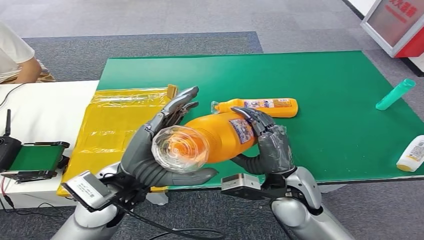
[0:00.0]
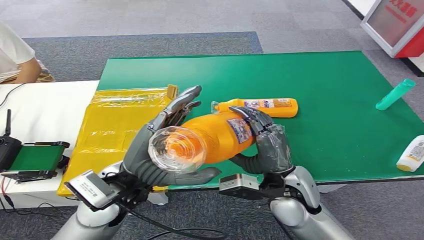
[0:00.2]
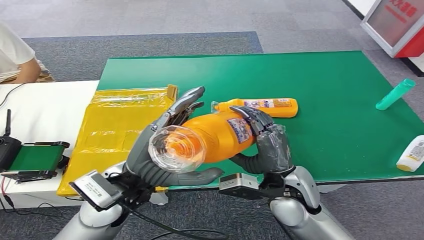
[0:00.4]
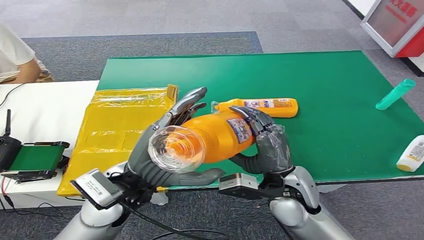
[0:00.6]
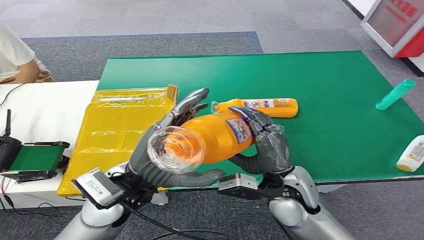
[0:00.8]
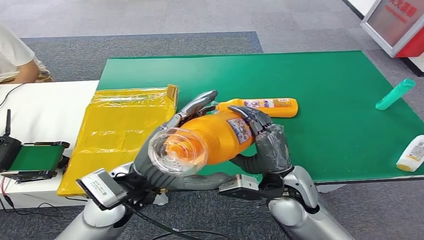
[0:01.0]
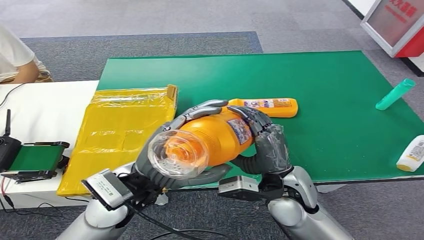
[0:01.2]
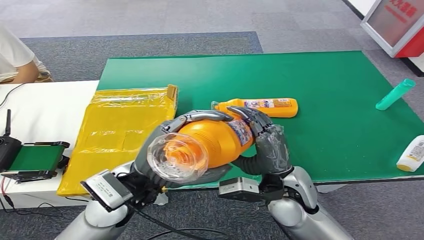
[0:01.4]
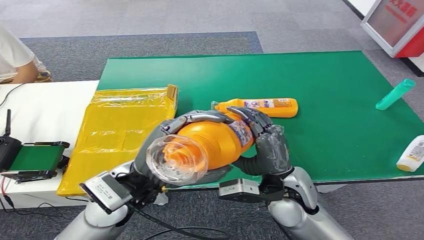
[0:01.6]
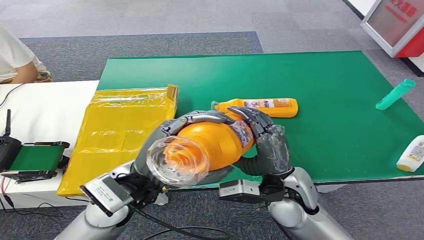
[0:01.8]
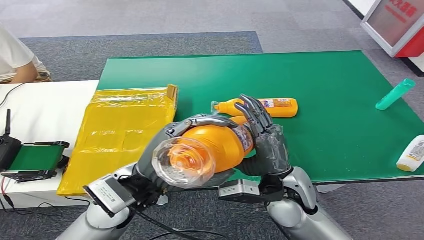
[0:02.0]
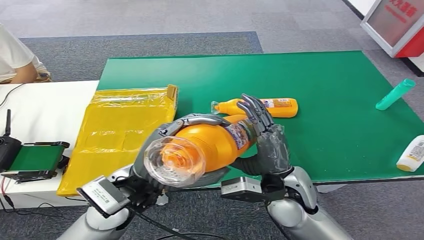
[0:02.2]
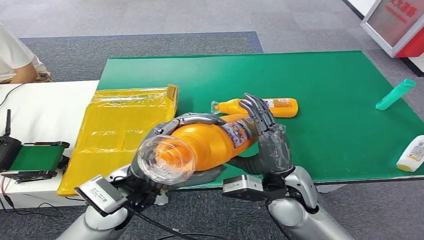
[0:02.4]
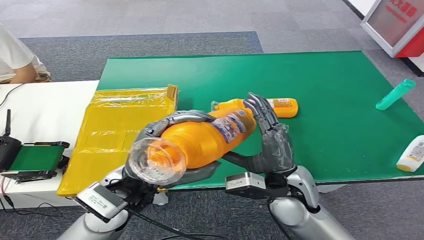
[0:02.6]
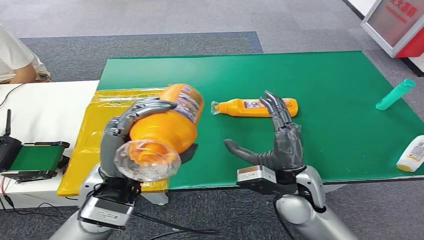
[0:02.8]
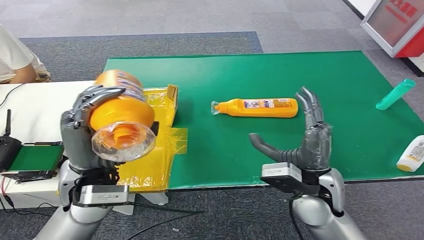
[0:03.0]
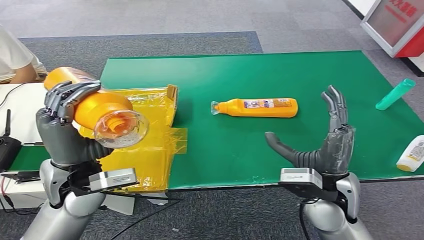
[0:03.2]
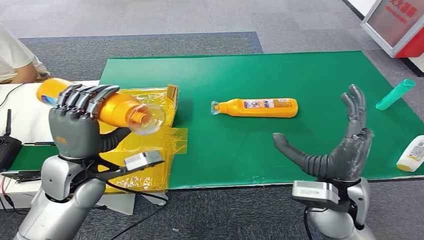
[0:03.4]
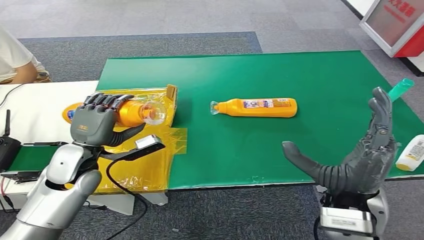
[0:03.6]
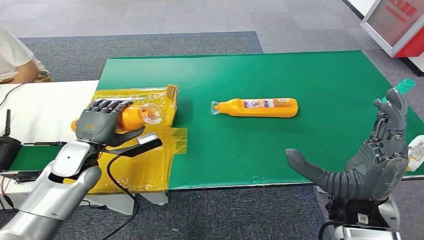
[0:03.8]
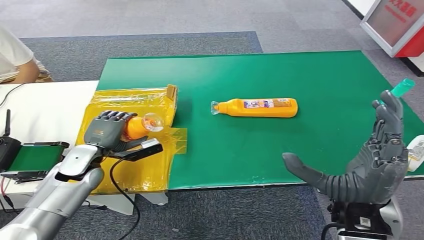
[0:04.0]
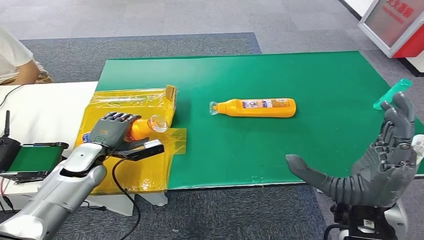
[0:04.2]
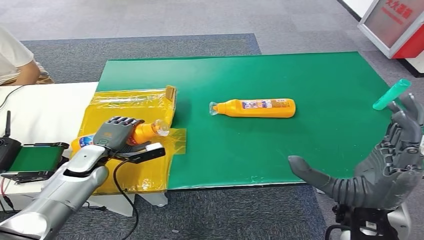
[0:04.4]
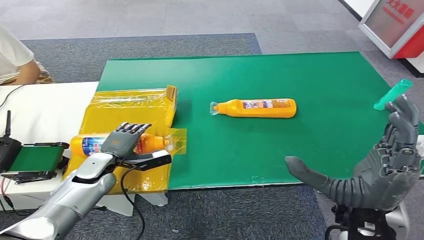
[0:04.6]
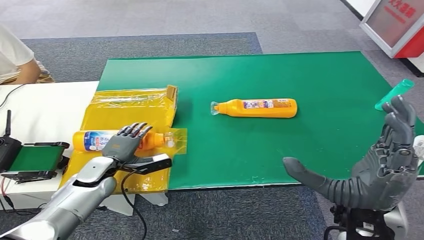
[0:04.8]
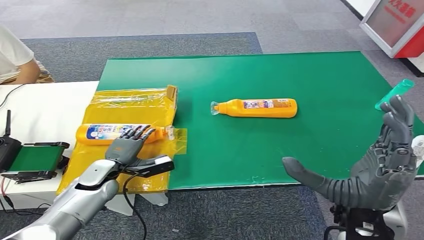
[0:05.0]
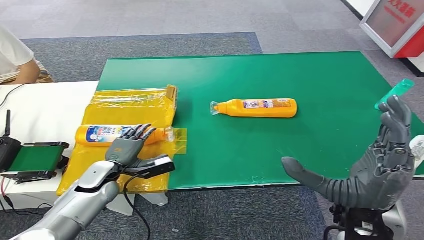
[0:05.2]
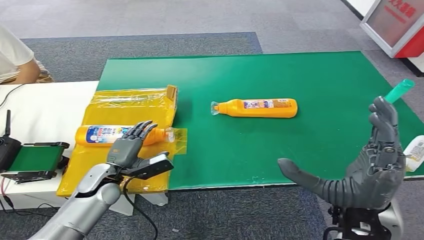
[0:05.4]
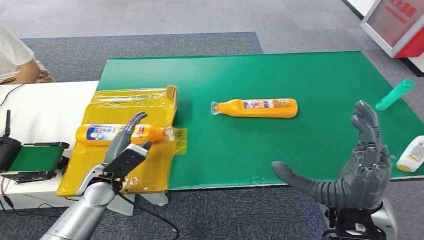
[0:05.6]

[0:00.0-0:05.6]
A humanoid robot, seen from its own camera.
Step, 0:00.0 to 0:05.6: Turn the bottle to the front side.
0:00.0 to 0:01.4: The hands make only small movements.
0:04.2 to 0:05.6: The left hand heads backward and to the right, covering about 10 cm.

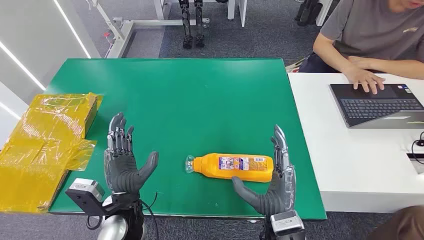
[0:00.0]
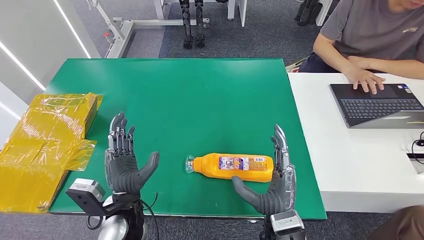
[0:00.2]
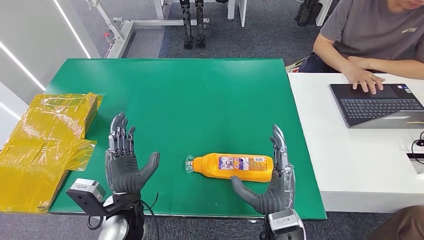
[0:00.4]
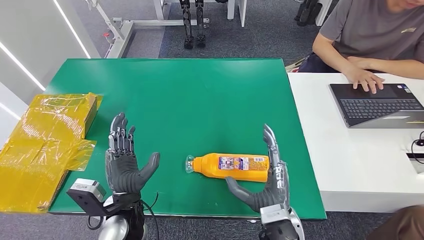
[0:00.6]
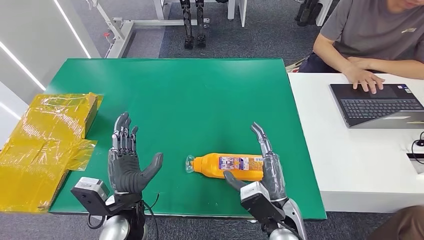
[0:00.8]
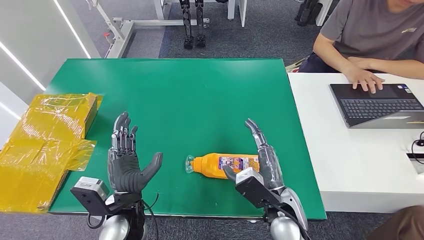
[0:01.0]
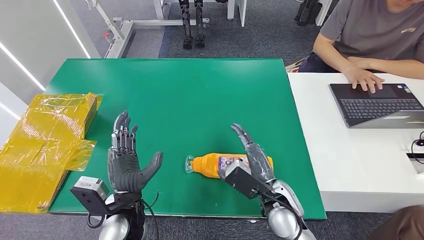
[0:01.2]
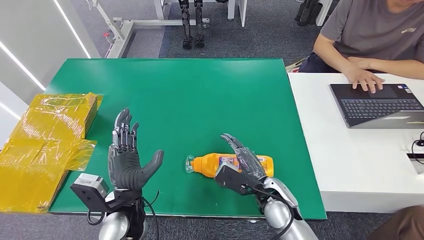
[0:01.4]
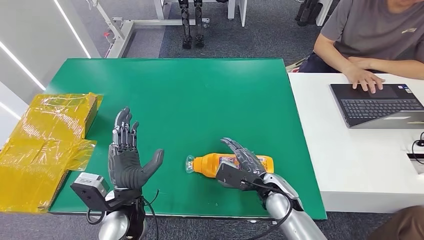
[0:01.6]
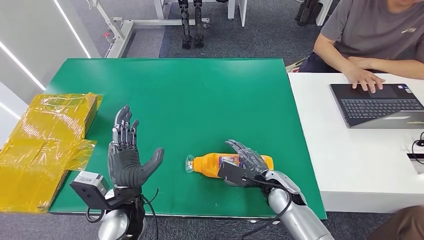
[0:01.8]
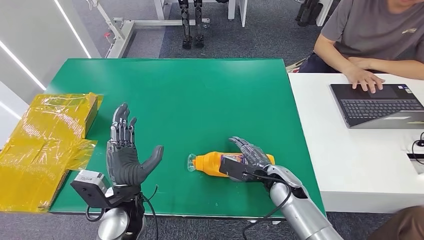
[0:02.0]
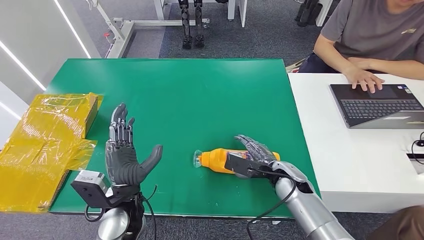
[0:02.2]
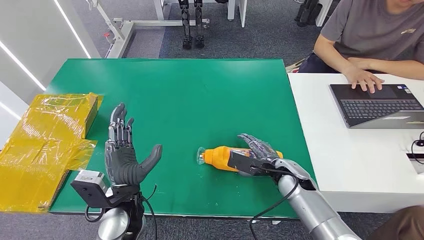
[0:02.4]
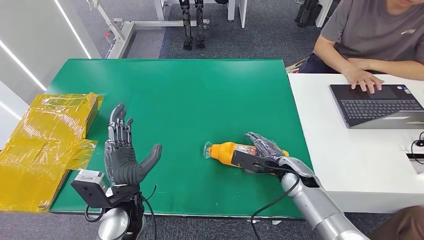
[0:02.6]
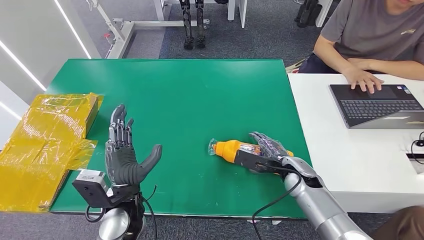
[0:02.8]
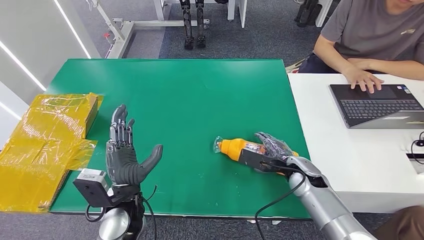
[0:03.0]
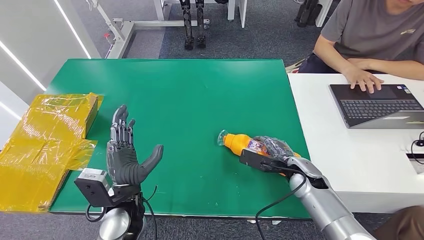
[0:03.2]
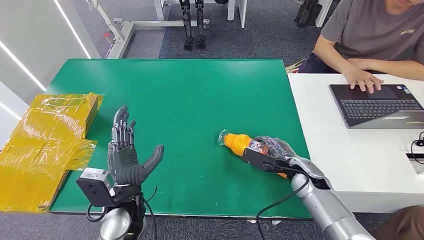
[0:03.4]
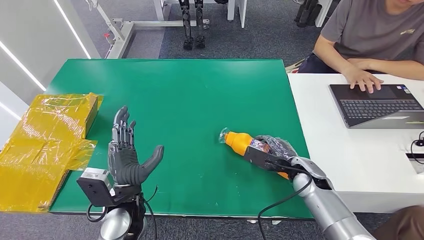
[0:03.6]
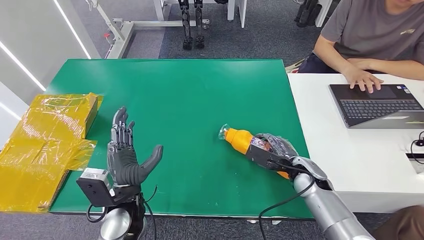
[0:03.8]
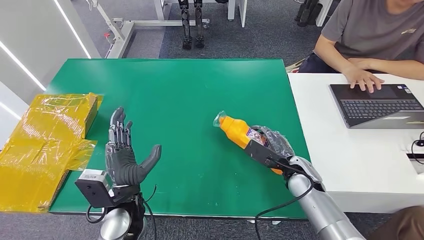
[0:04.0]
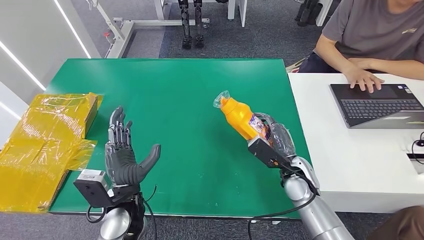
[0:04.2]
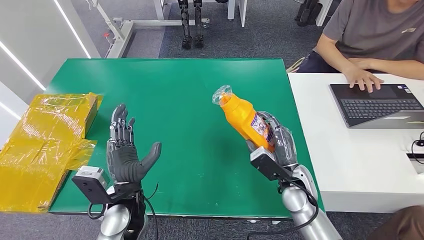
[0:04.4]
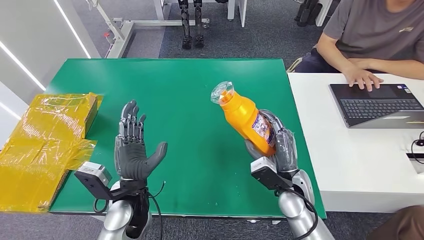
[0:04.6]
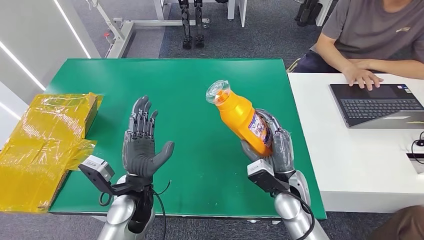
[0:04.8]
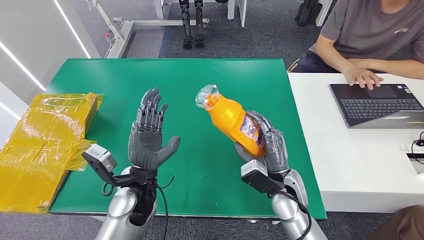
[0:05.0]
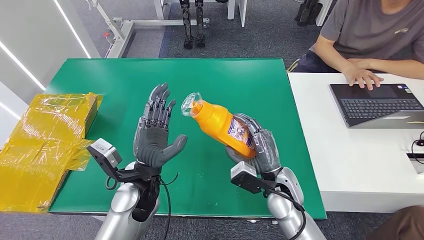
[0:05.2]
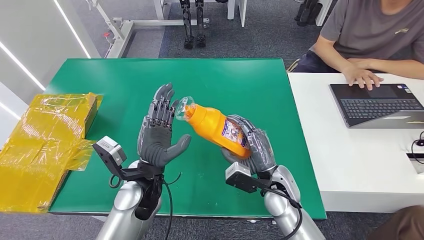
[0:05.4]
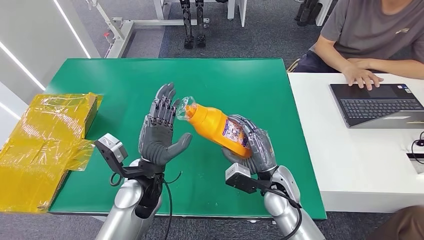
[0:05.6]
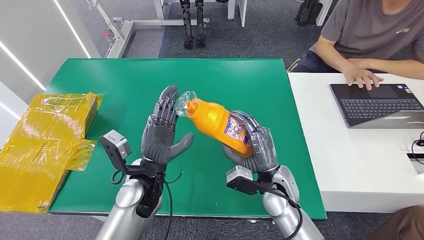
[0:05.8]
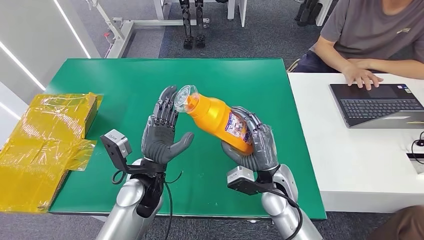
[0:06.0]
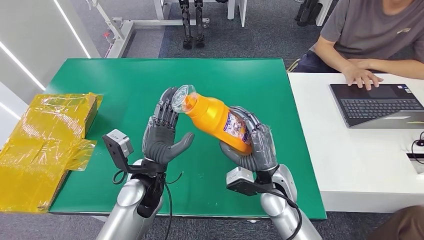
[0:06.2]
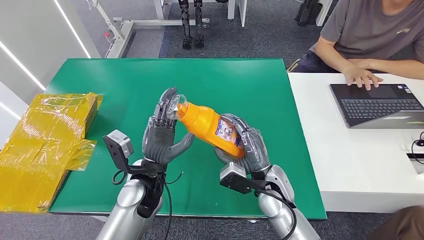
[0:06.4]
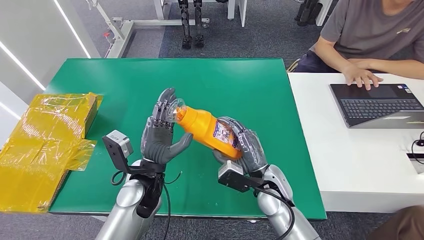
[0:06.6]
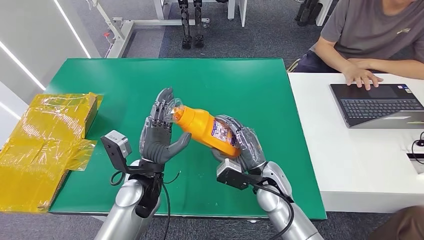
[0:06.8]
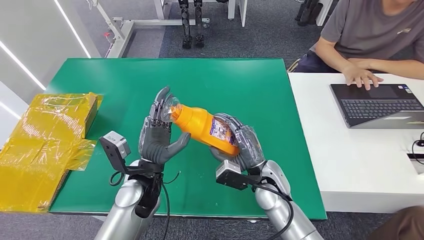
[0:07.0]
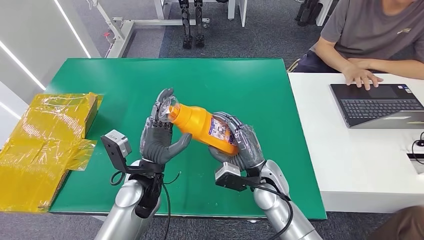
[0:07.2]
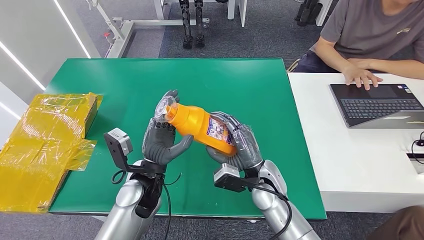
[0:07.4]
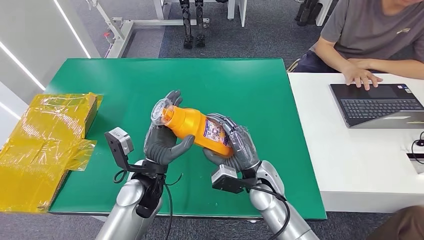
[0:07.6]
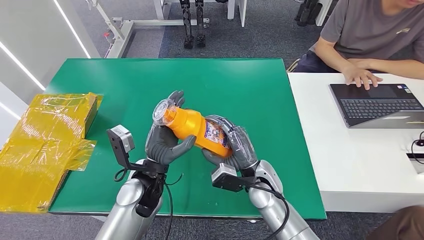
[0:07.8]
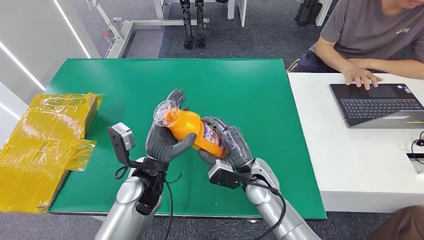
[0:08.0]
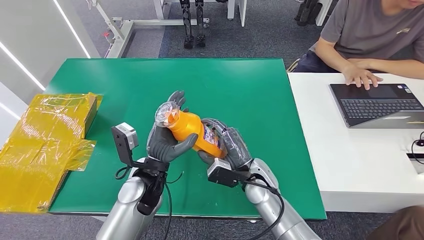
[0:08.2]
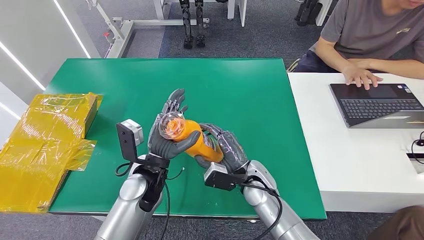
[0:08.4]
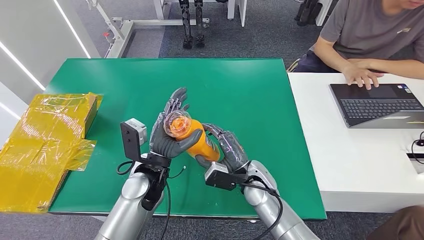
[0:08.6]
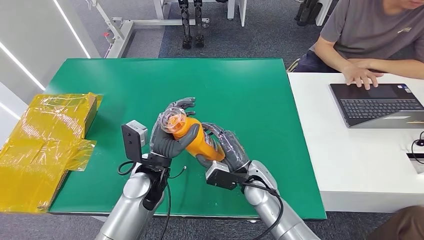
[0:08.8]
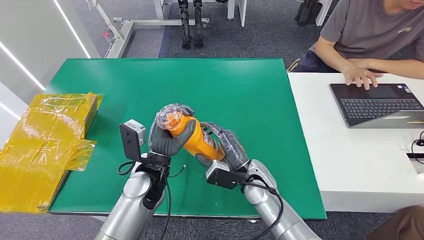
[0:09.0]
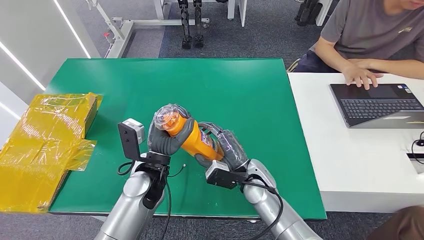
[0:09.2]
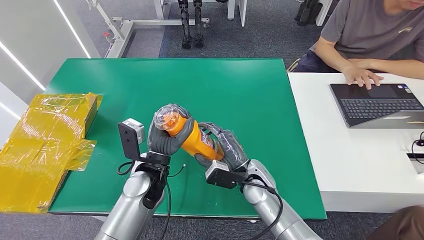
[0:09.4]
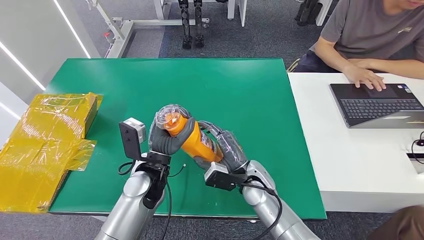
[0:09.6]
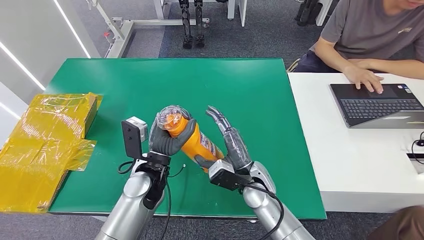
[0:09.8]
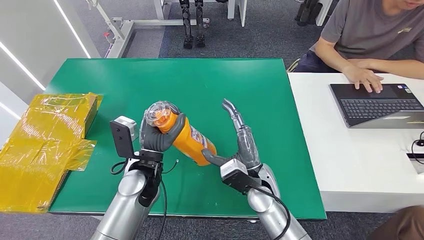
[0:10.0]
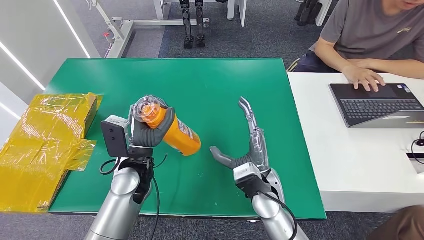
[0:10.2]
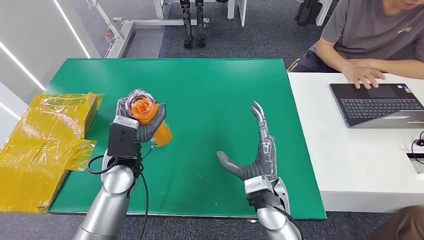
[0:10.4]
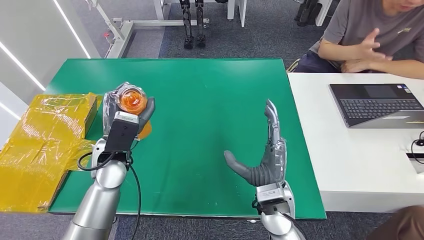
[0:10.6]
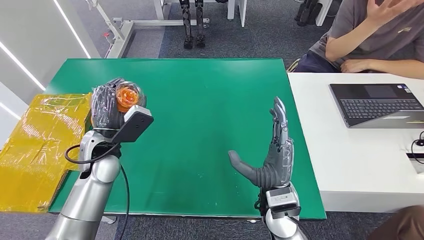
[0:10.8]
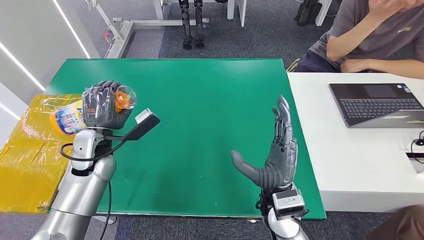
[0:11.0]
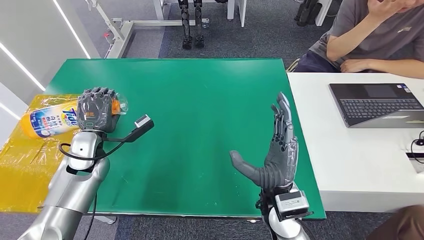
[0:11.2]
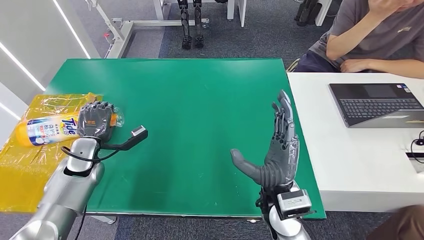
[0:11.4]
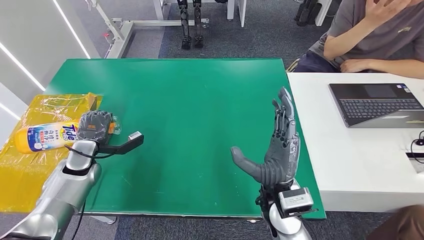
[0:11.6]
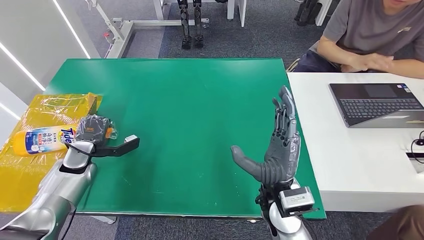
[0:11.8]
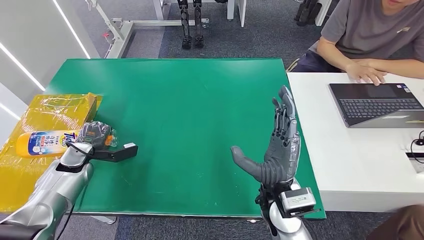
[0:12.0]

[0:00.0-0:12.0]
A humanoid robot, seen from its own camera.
Step, 0:00.0 to 0:06.2: Pick up the bottle from the table.
0:01.6 to 0:03.0: The right hand travels to the right and forward by some 10 cm.
0:03.0 to 0:04.4: The right hand ends up roughly 5 cm from where it was.
0:04.4 to 0:06.0: The left hand changes place by roughly 5 cm. Meanwhile the right hand goes about 5 cm to the left.
0:06.0 to 0:07.6: There are only small adjustments of the hands.
0:07.6 to 0:09.0: The hands move only a little.
0:09.0 to 0:10.4: The right hand moves backward, about 5 cm. The left hand shifts some 5 cm to the left.
0:10.4 to 0:12.0: The right hand is displaced upward by approximately 5 cm; the left hand goes roughly 25 cm to the left and downward.
